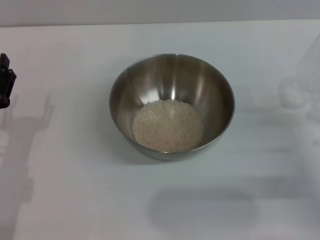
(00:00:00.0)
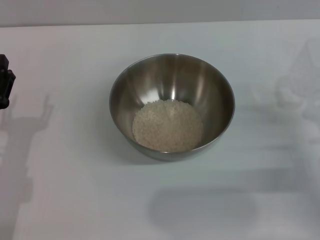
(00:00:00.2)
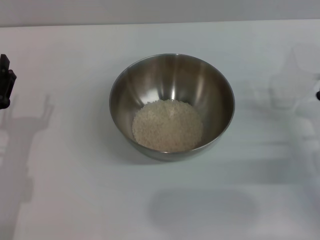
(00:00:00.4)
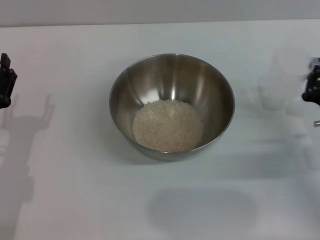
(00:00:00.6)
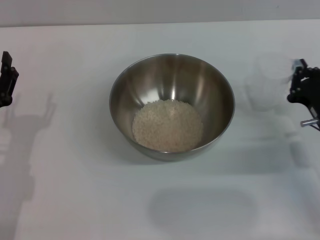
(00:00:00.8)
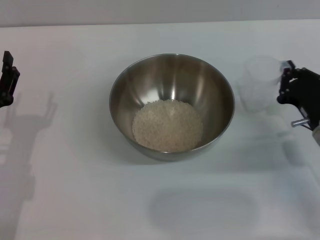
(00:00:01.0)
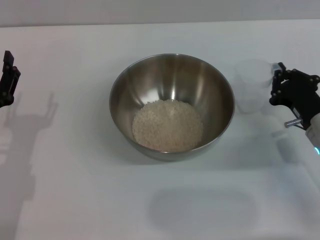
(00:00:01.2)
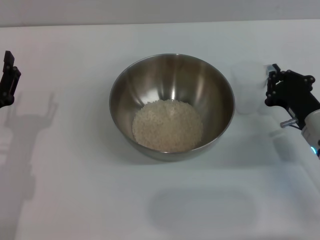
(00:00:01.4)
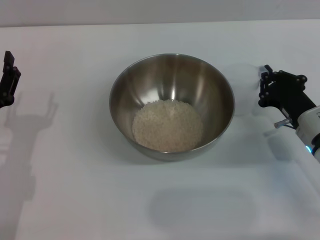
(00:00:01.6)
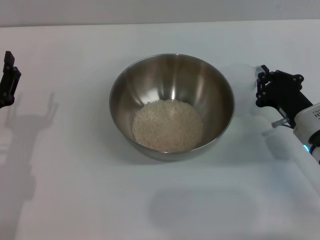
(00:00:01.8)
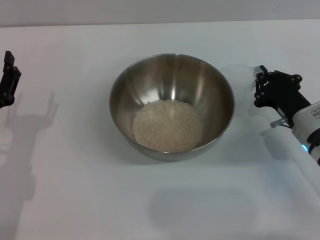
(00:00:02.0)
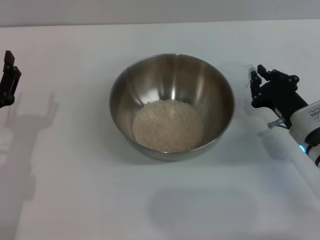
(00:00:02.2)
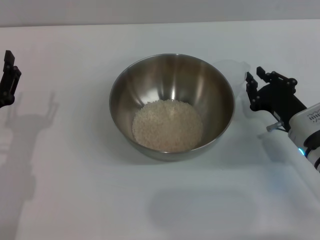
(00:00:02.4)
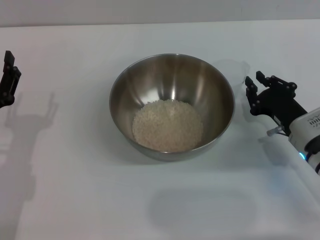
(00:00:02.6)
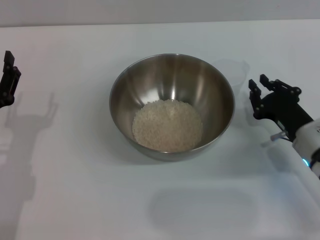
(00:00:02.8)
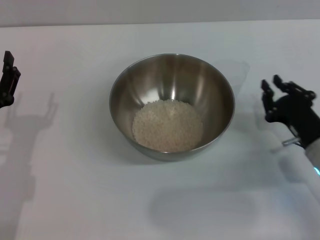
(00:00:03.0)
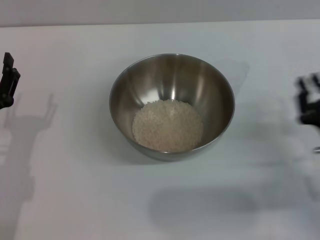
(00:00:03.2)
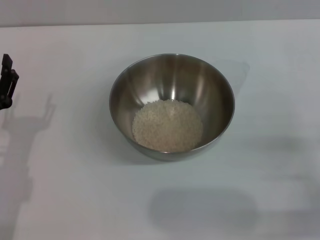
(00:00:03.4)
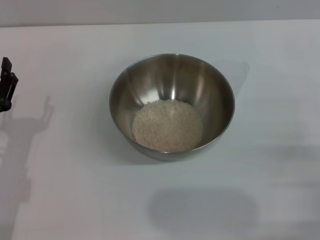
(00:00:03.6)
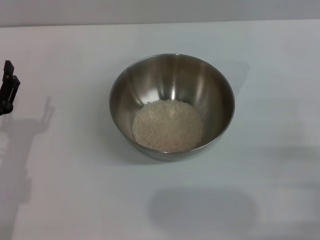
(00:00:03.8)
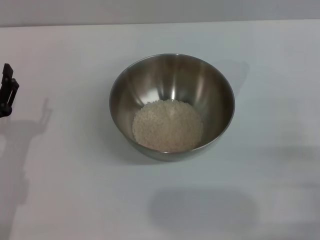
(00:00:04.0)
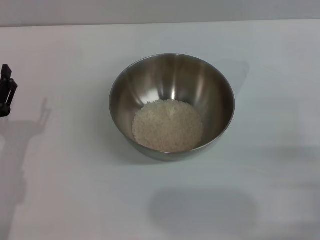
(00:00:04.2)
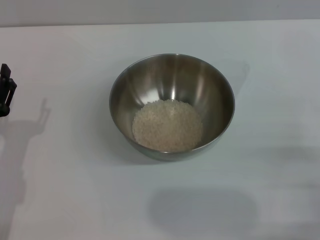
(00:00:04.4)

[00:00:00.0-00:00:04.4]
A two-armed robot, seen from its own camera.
Task of the whole recording: Place the bowl in the middle of the table with one hand and pour the rice from the grain cup into it with the other hand.
Step, 00:00:00.0 to 00:00:02.8: Place the cup on the table with the right gripper.
00:00:00.0 to 00:00:01.4: The right gripper heads forward, covering about 5 cm.
00:00:01.4 to 00:00:03.0: The grippers make only small movements.
00:00:03.0 to 00:00:04.4: The right gripper goes approximately 10 cm backward and to the right, and opens its fingers.
